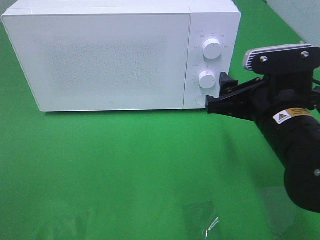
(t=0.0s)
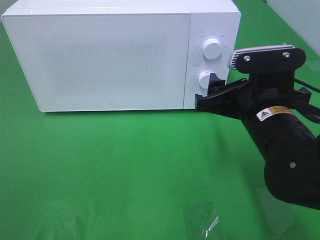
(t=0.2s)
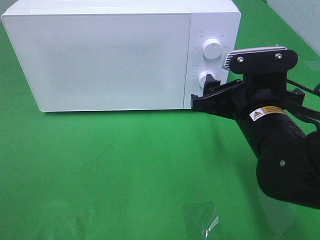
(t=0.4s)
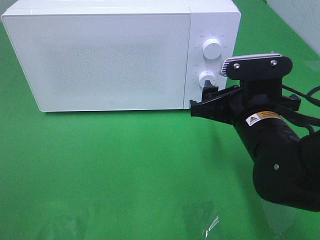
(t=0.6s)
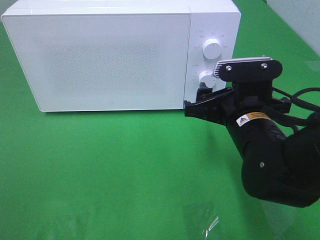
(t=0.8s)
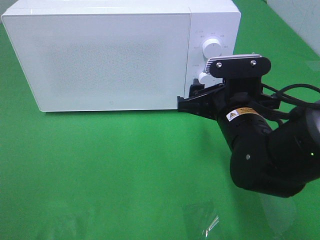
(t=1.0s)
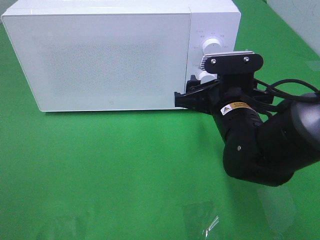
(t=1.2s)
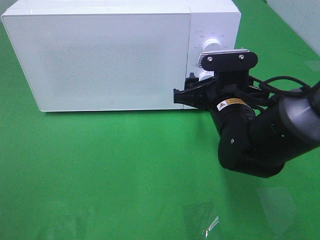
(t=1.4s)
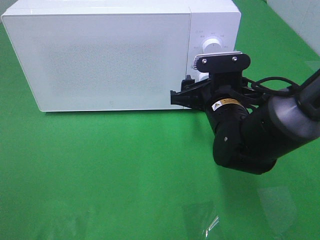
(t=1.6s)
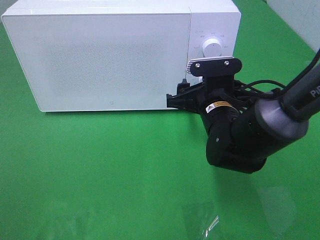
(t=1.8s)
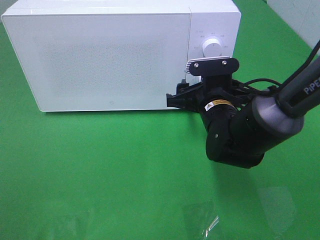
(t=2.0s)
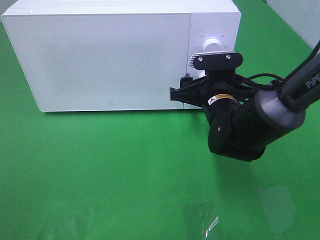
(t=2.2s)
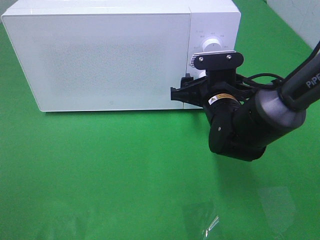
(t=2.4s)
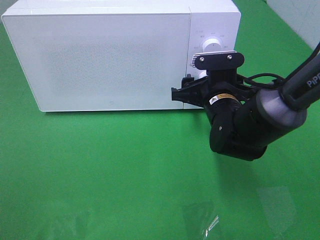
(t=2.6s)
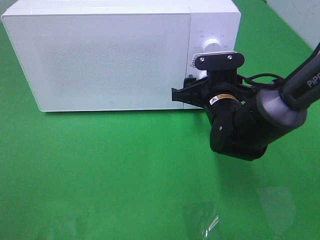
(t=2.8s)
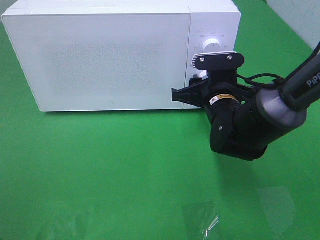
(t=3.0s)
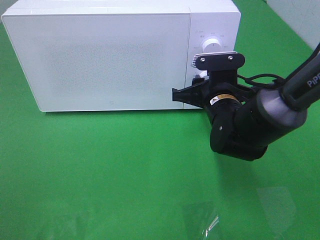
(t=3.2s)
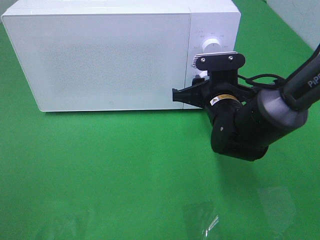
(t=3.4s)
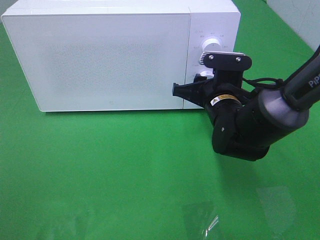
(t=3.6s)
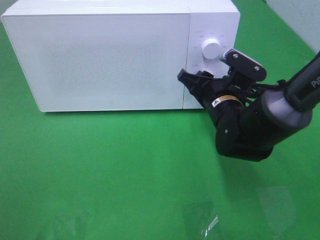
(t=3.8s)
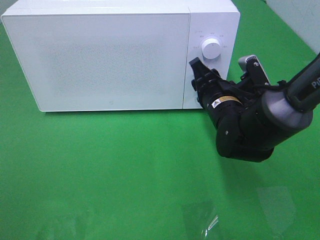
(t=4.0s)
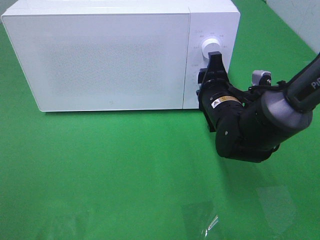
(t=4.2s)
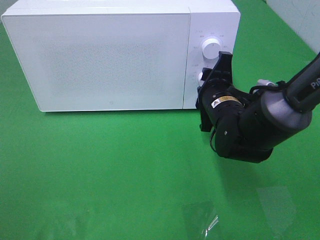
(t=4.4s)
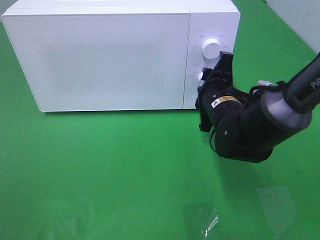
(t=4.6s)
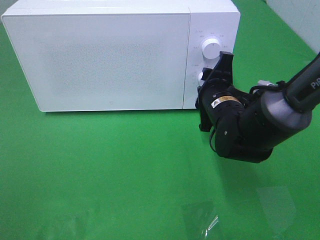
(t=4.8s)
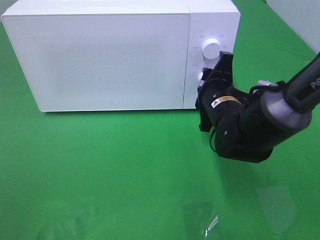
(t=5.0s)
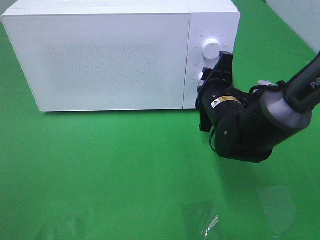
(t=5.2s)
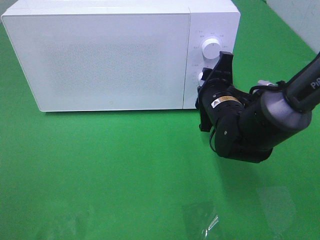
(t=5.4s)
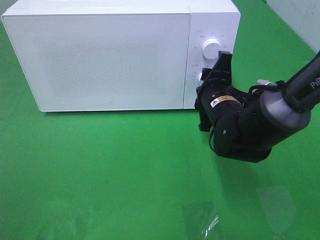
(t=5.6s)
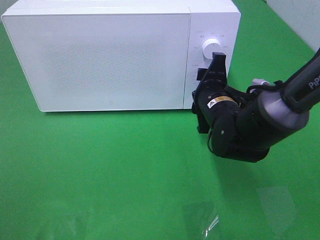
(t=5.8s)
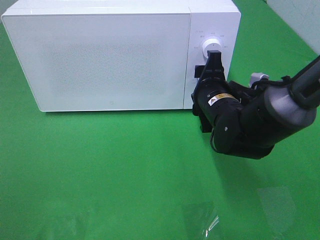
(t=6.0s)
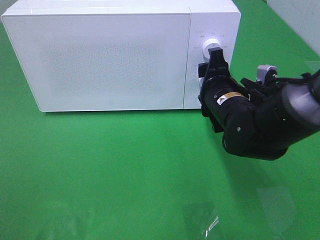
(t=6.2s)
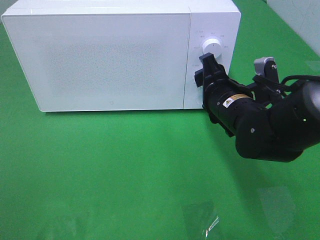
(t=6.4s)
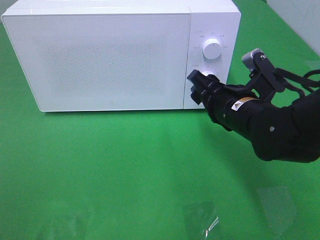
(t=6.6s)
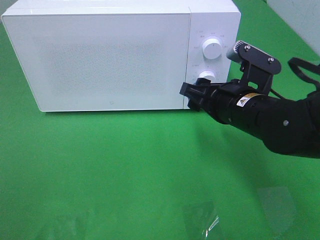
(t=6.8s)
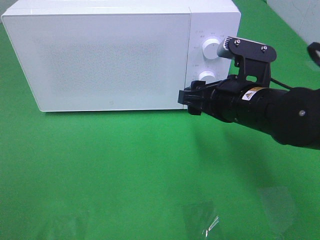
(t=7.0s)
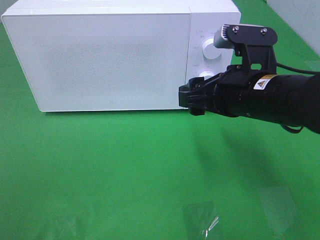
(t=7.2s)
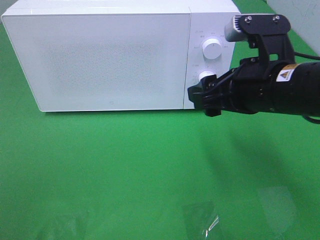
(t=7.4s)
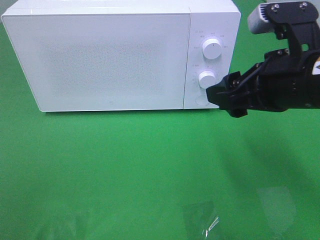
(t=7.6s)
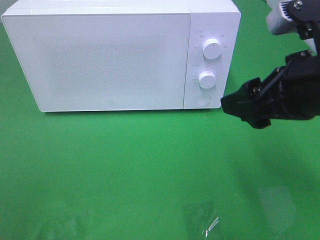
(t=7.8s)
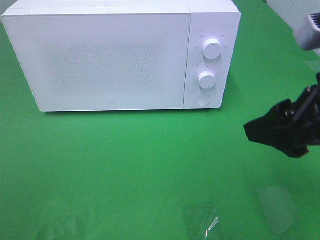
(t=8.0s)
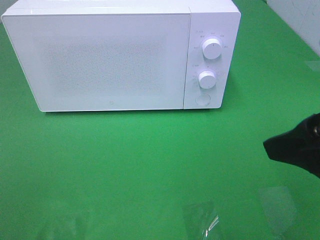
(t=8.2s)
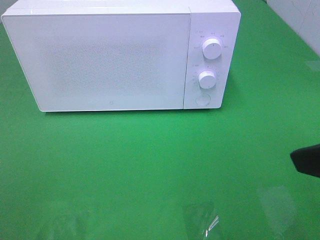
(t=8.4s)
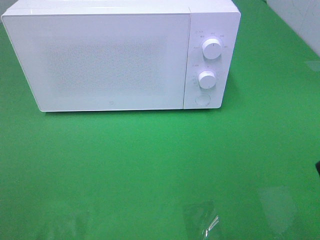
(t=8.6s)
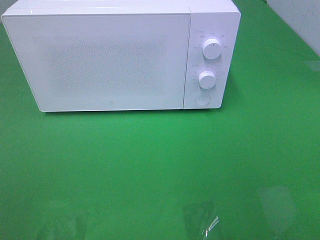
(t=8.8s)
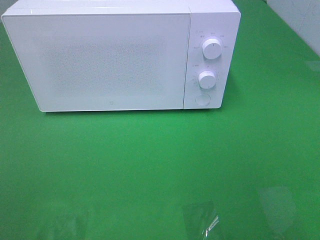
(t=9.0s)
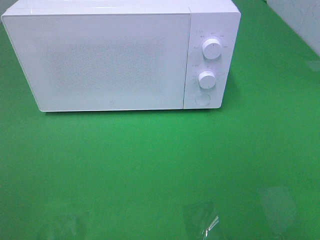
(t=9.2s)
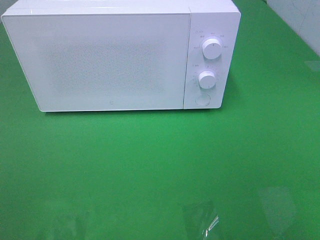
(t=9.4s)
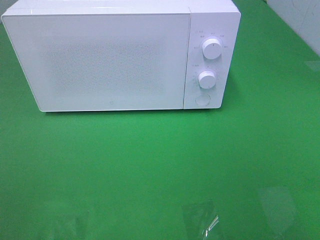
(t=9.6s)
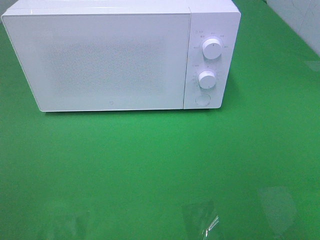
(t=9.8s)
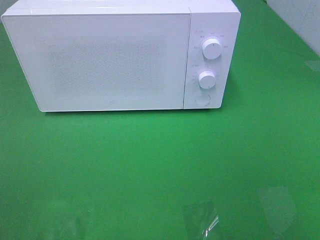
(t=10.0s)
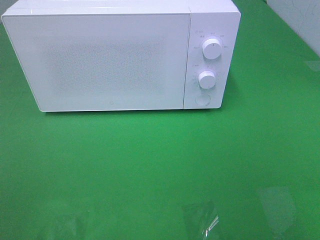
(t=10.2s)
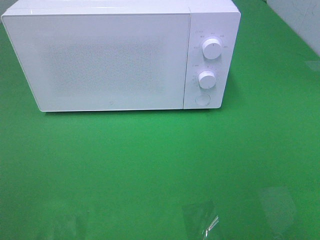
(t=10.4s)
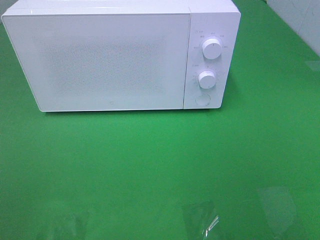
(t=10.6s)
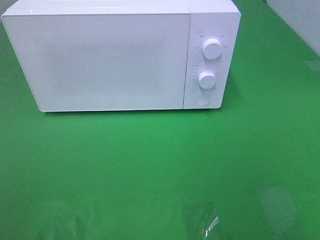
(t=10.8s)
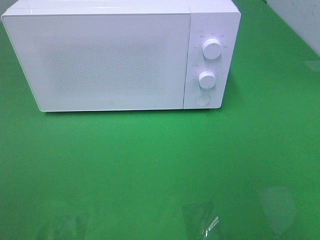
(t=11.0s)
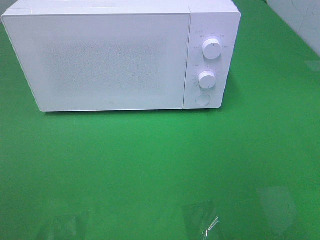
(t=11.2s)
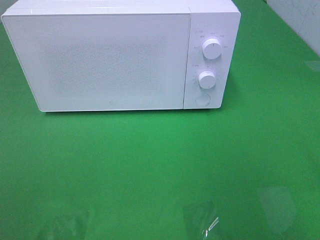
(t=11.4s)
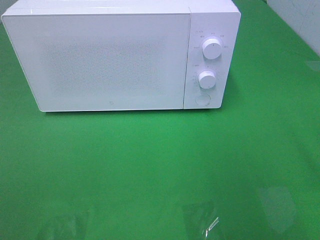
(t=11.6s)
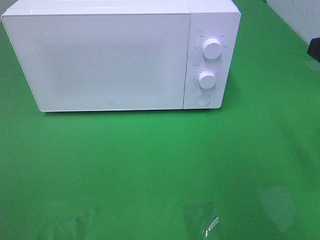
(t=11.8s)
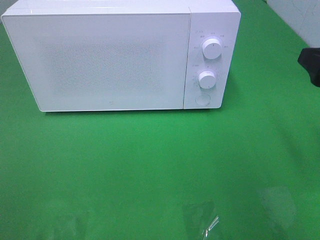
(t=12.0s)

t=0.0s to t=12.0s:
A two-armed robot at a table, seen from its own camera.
Task of the whole recording: Heat the burger.
Step, t=0.0s to t=5.6s: Right hand: twist timer button.
t=0.0s to t=1.6s: The right gripper is displaced forward and downward by some 10 cm.
t=1.6s to t=3.0s: The grippers make only small movements.
t=4.4s to t=6.0s: The grippers make only small movements.
t=6.0s to t=7.6s: The right gripper moves upward, backward and to the right, roughly 20 cm.
t=7.6s to t=9.0s: The right gripper moves backward and to the right, approximately 20 cm.
t=10.4s to t=12.0s: The right gripper shifts approximately 20 cm forward.

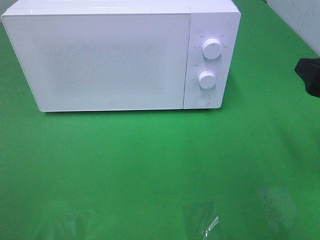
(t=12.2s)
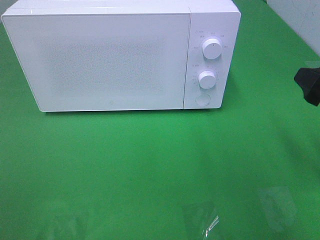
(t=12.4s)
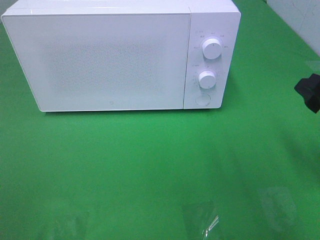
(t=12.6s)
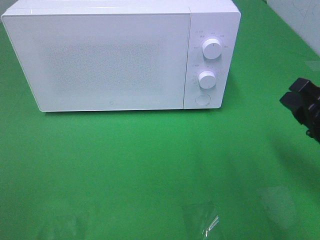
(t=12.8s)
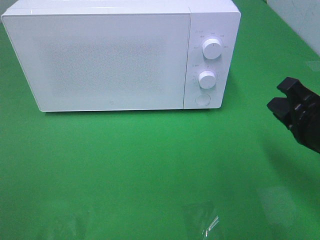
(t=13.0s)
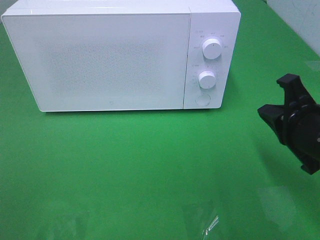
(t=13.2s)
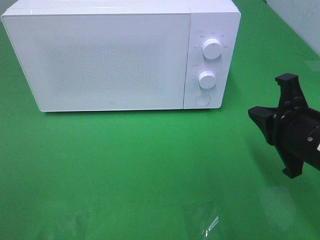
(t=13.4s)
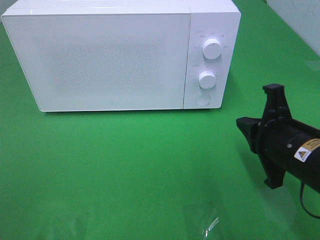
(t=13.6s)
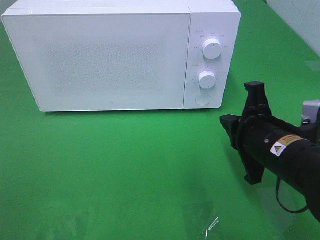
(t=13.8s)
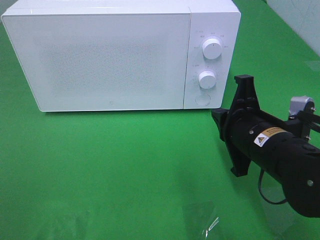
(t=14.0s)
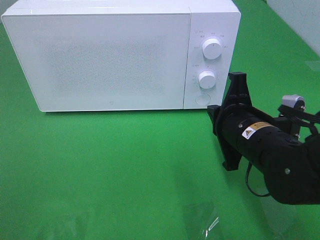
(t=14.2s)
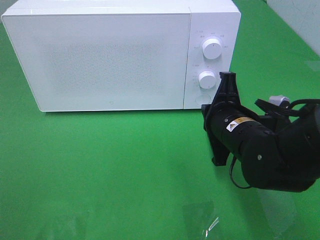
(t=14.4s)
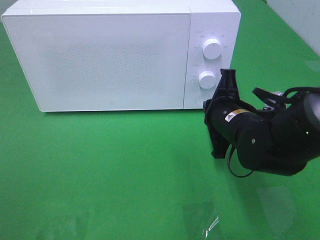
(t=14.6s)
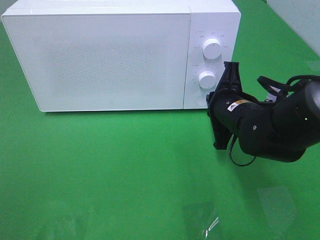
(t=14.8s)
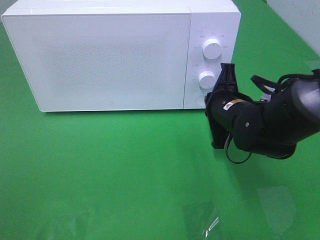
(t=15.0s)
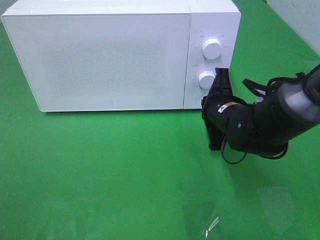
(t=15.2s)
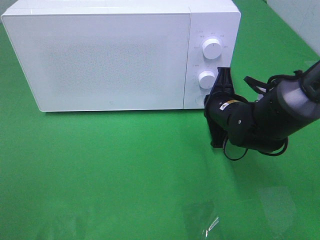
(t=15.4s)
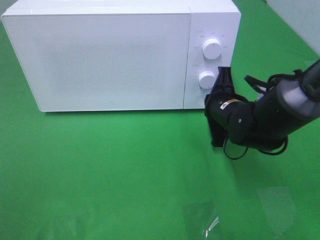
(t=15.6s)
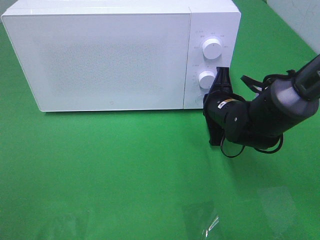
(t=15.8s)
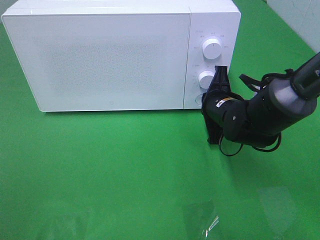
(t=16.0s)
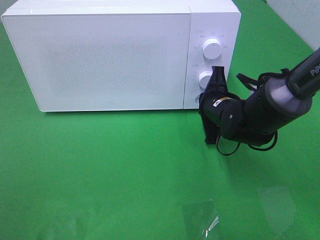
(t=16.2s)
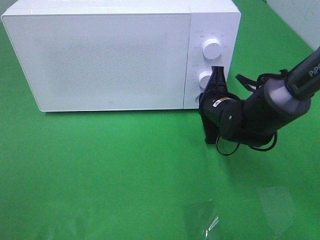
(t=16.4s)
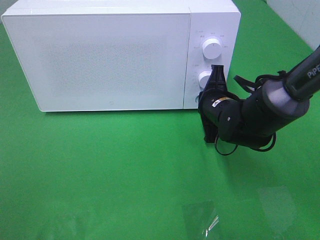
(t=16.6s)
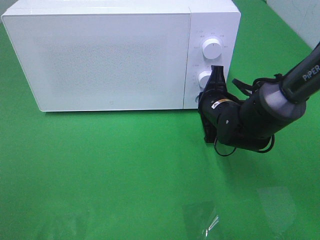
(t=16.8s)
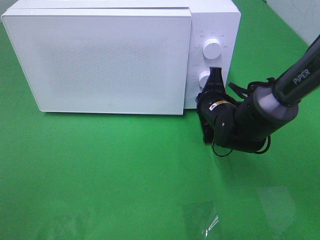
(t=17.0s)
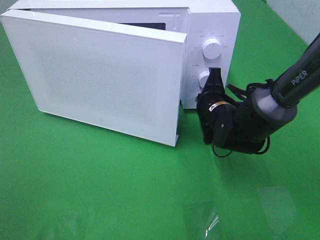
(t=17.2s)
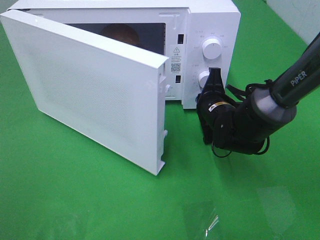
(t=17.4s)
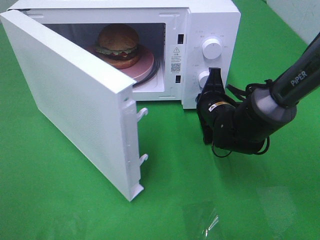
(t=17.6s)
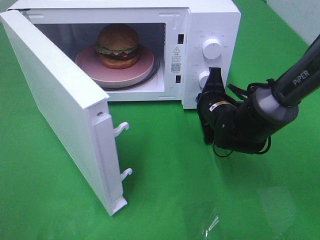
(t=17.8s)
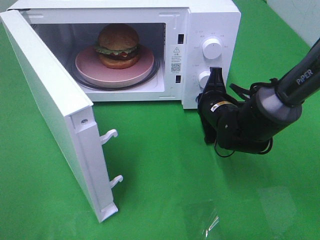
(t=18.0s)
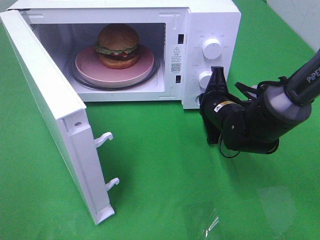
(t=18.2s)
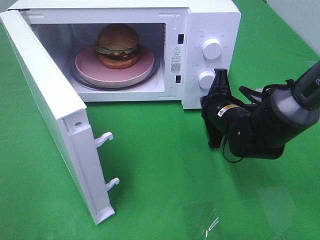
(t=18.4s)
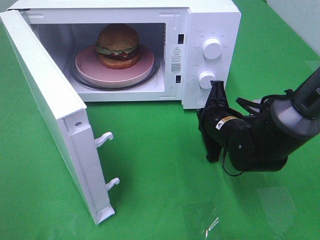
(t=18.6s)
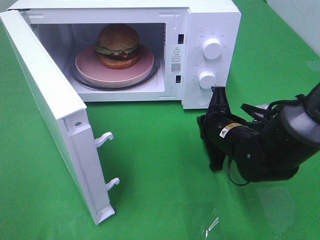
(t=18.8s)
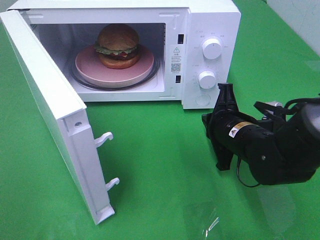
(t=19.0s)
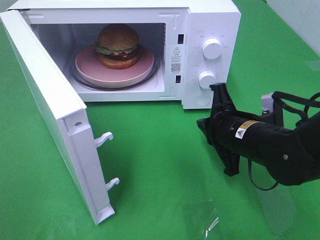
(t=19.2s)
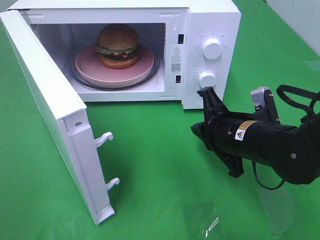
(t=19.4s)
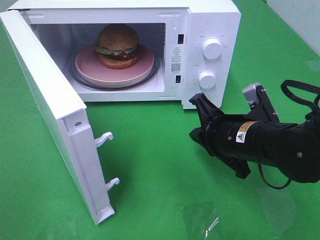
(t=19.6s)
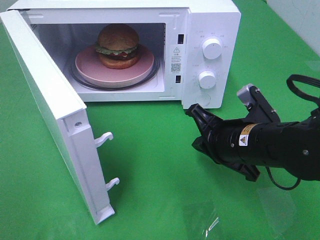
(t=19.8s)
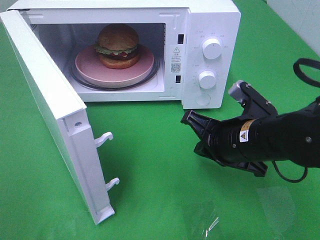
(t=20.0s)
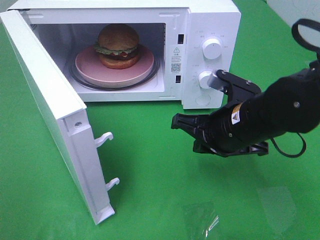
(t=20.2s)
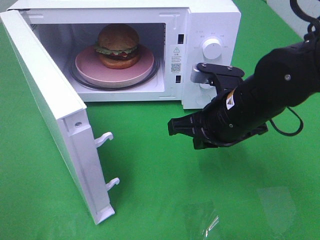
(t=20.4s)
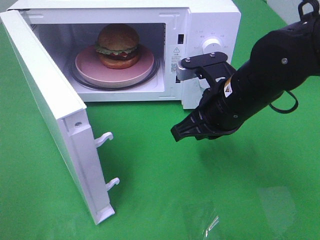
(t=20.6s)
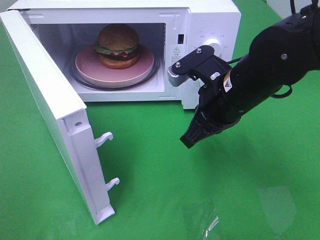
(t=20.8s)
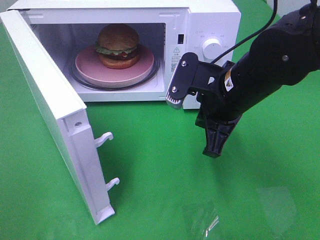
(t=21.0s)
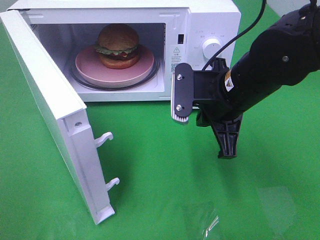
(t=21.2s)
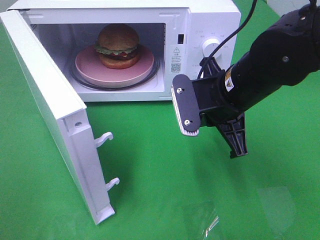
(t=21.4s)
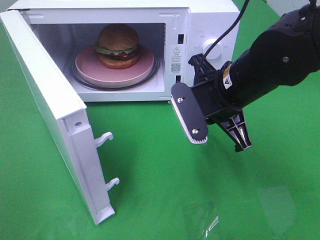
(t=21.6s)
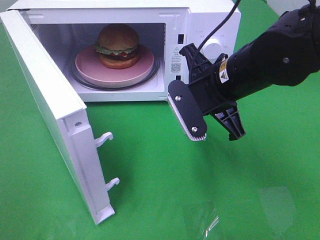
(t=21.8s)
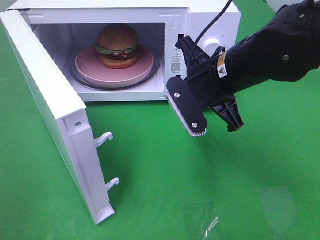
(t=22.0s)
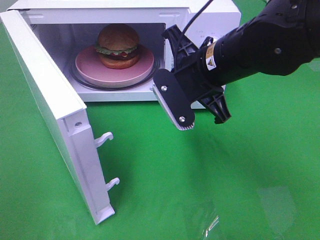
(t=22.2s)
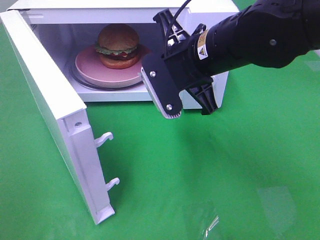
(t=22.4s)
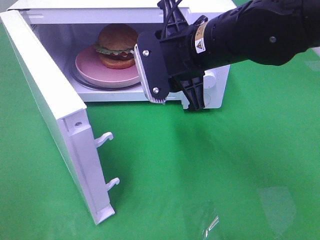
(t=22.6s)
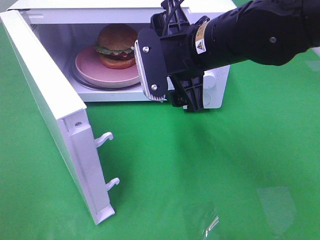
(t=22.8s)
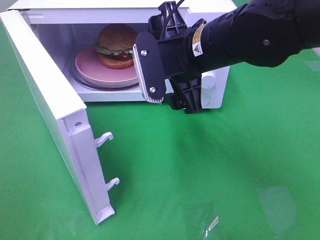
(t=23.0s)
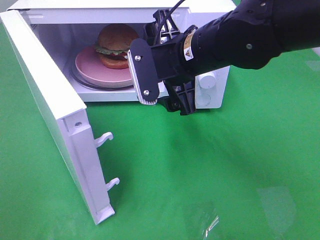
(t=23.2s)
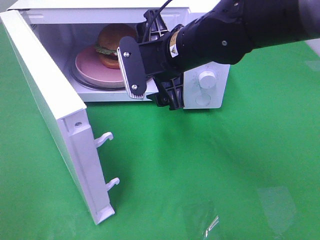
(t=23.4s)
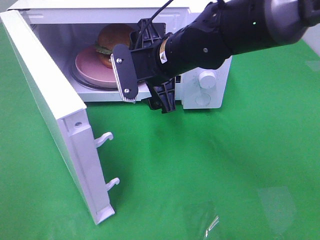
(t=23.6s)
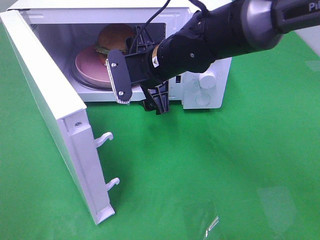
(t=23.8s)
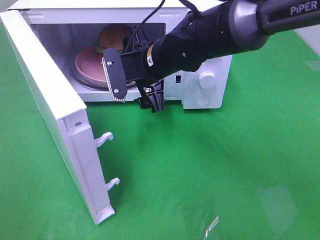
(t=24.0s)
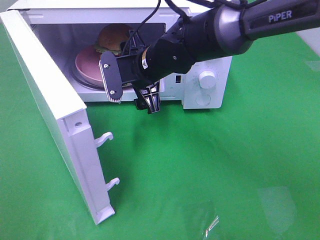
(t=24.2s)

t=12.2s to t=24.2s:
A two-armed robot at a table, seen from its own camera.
Task of the whole recording: Heat the burger.
Step, t=12.2s to t=18.4s: Right hand: press the switch.
t=12.2s to t=13.8s: The right gripper moves to the left and downward, about 15 cm, and closes its fingers.
t=13.8s to t=15.2s: The right gripper is displaced forward by about 10 cm.
t=15.2s to t=16.6s: There are only small adjustments of the grippers.
t=18.2s to t=19.8s: The right gripper shifts some 10 cm backward.
t=19.8s to t=21.2s: The right gripper moves upward, approximately 5 cm.
t=21.2s to t=22.6s: The right gripper shifts some 5 cm upward, and opens its fingers.
t=22.6s to t=24.2s: The right gripper goes approximately 15 cm forward, downward and to the left.
